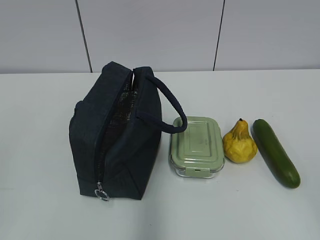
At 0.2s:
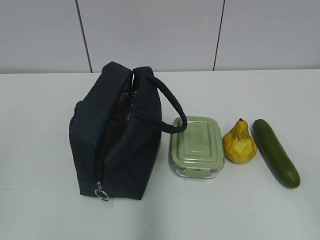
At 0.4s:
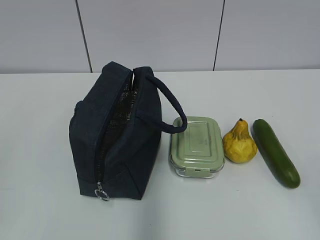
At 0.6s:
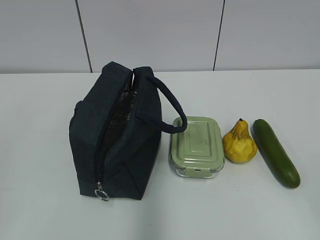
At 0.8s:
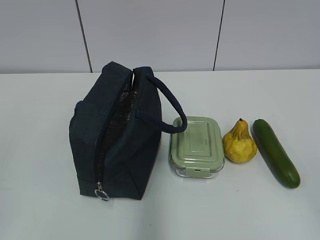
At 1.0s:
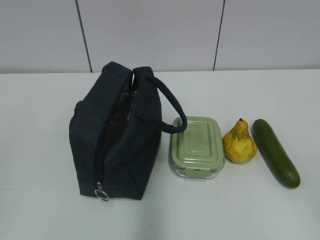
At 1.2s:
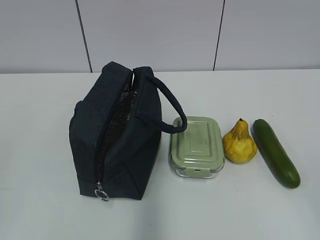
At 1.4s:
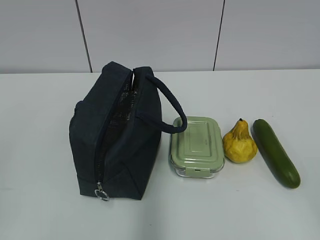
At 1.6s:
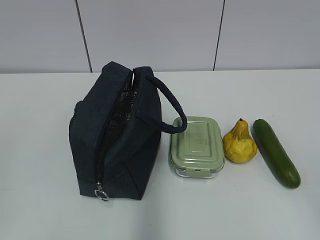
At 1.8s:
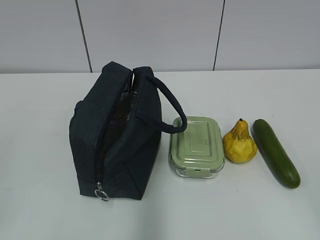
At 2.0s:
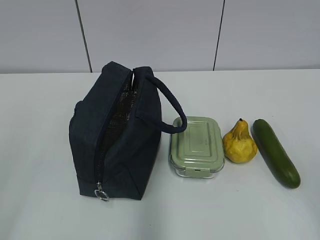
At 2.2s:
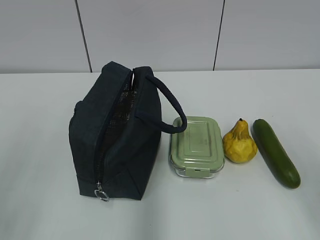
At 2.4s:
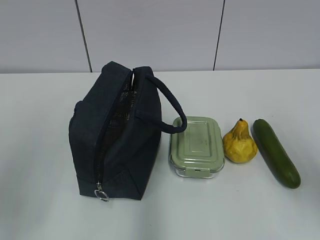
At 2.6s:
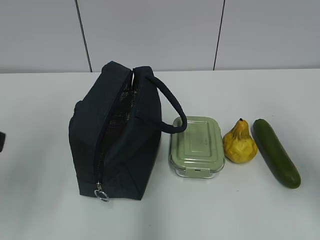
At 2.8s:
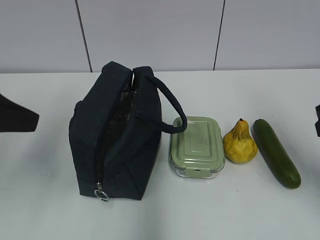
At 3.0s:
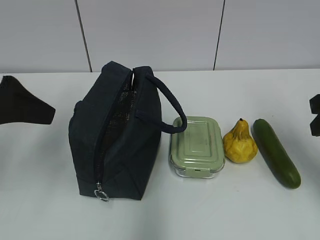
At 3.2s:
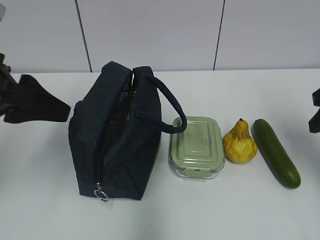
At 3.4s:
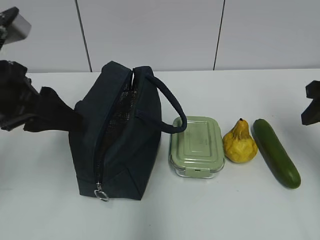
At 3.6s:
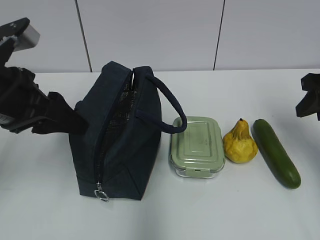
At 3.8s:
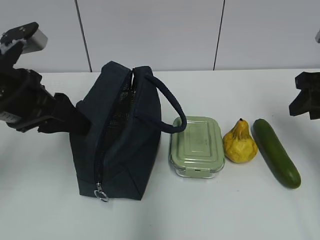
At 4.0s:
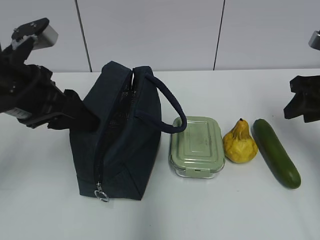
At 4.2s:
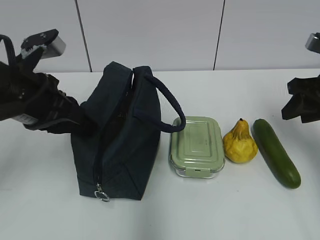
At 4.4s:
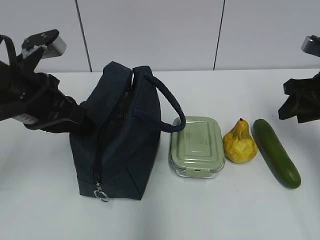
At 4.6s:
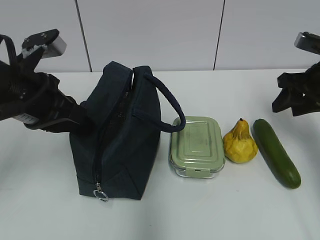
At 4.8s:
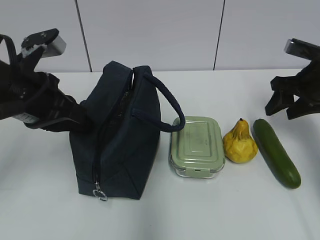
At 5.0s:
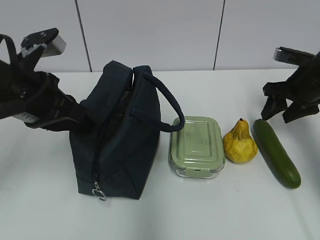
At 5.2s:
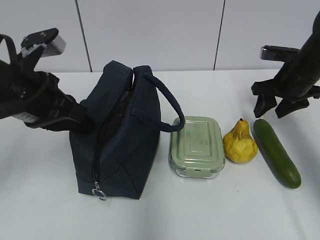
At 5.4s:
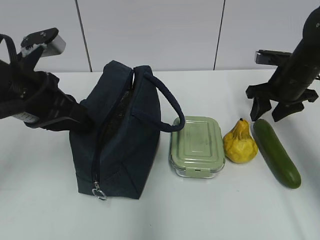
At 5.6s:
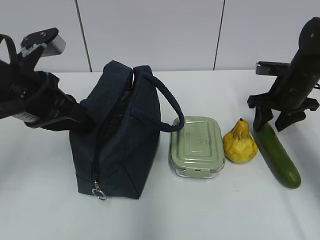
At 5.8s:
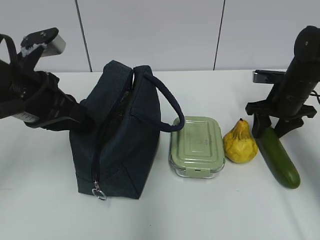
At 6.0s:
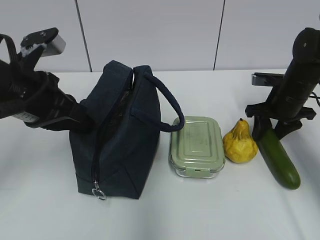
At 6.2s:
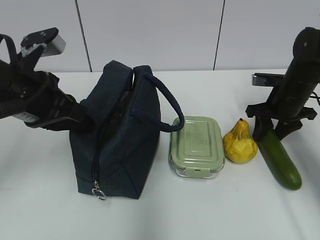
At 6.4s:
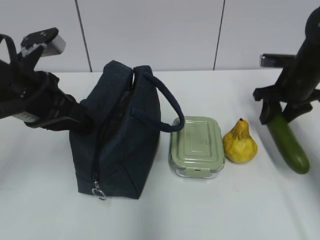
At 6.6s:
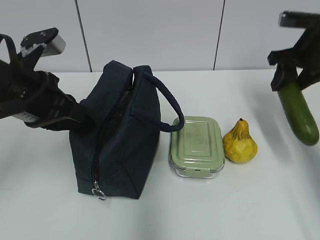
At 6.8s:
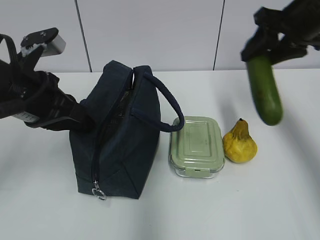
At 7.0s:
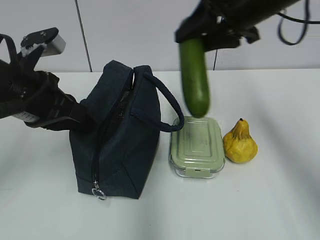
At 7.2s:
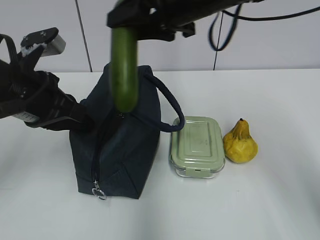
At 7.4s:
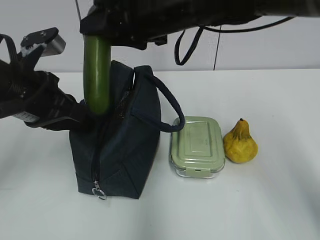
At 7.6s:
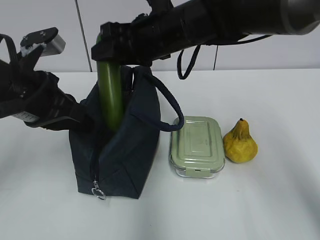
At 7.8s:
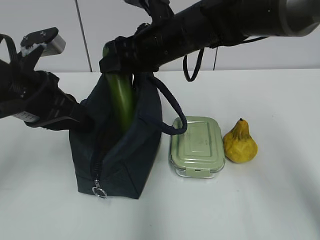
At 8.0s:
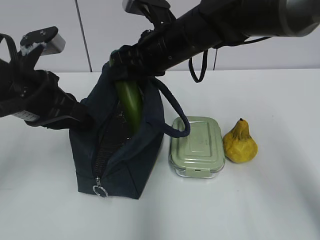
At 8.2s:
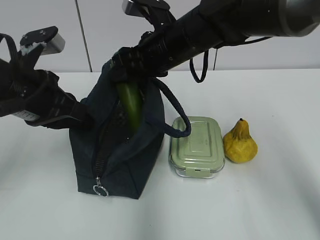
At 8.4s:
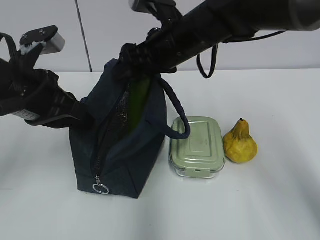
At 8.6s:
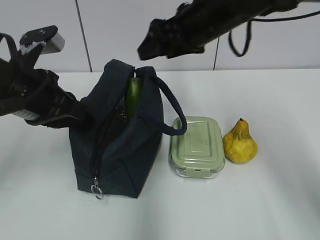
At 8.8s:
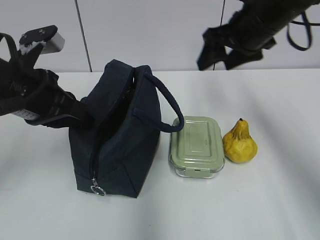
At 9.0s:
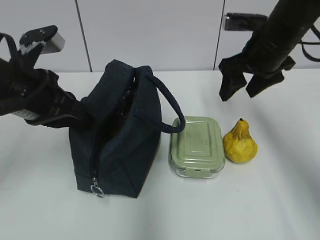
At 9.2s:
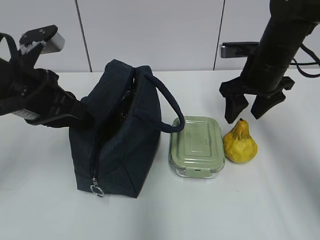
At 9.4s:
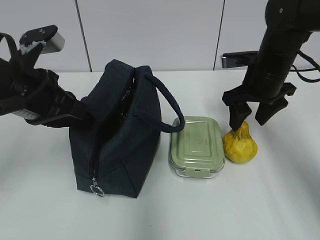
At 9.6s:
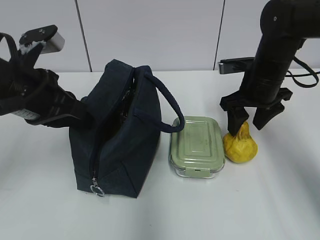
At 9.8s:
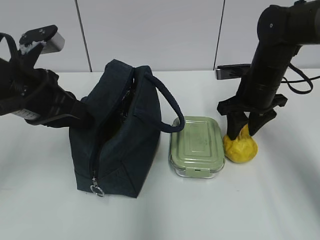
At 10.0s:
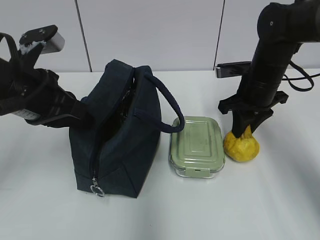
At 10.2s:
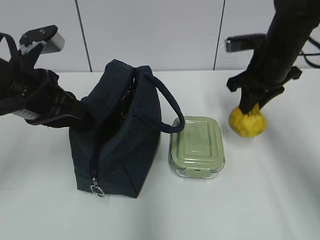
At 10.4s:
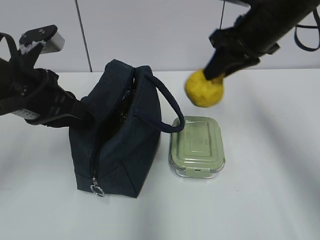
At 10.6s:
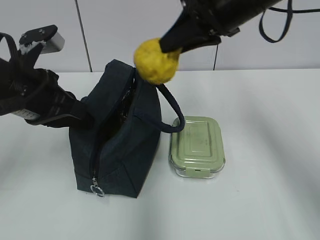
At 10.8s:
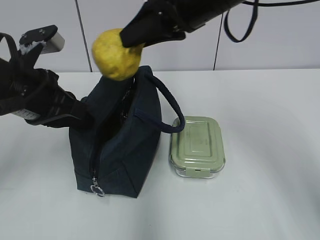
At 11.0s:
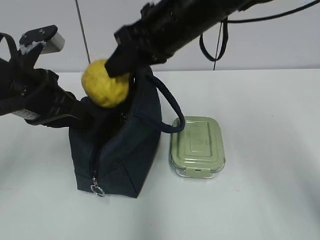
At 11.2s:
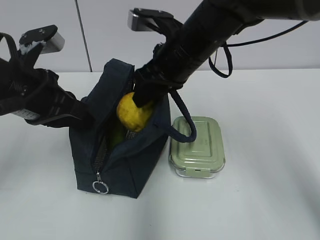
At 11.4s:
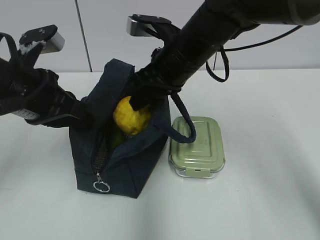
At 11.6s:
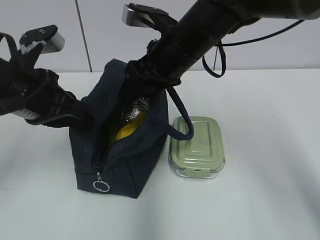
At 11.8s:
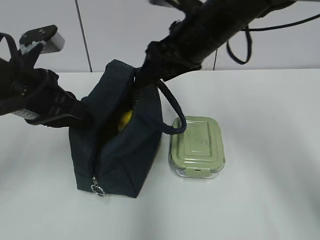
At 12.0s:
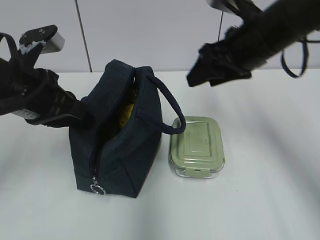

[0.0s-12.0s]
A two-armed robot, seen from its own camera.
Step, 0.0s to 6.0s: Grab the cucumber with your right hand.
Step, 7.8s to 8.6s: Place it into the bag with your right hand.
Step, 8.8s to 9.8s: Grab the pear with your right hand.
Step, 10.0s to 11.8s: Place it into the bag with your right hand.
1.6s to 3.0s: The two grippers go roughly 25 cm forward. The left gripper opens up.
3.0s to 4.4s: The right gripper heads forward, covering roughly 10 cm. The left gripper travels downward and forward by approximately 5 cm, and closes.
4.4s to 6.0s: The right gripper heads forward and downward, covering about 10 cm.
6.0s to 7.6s: The right gripper heads to the left and upward, covering some 30 cm.
7.6s to 9.0s: The right gripper is displaced to the right by about 15 cm.
9.0s to 10.4s: The right gripper shifts by about 5 cm, and closes its fingers.
10.4s to 12.0s: The right gripper moves about 10 cm to the left and comes back, and opens up.

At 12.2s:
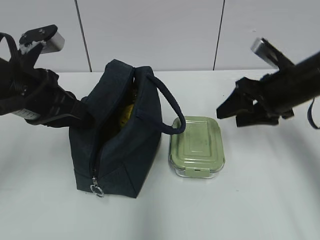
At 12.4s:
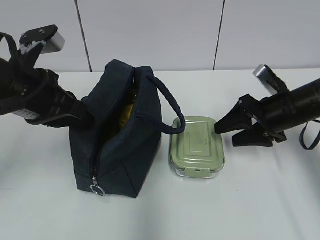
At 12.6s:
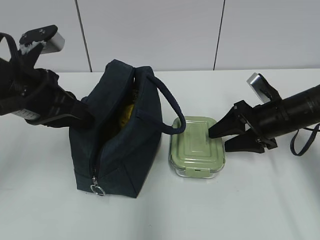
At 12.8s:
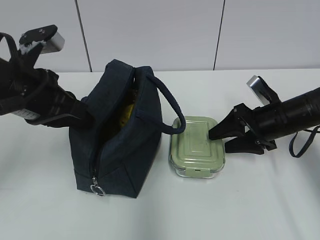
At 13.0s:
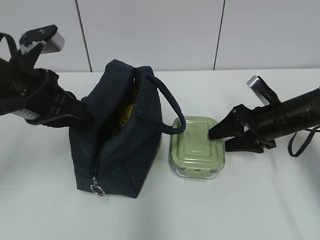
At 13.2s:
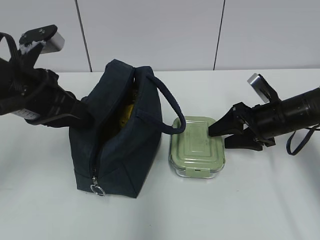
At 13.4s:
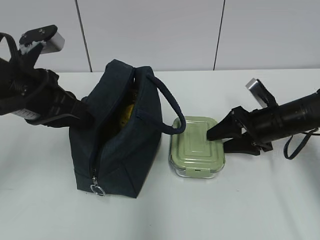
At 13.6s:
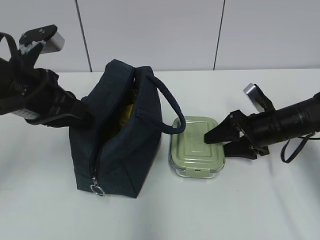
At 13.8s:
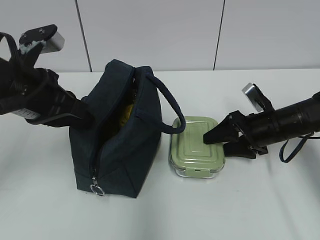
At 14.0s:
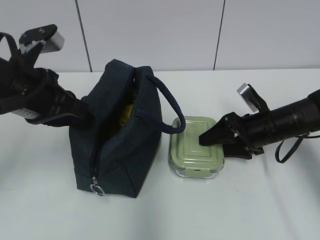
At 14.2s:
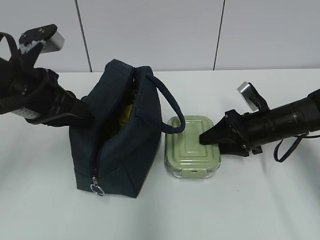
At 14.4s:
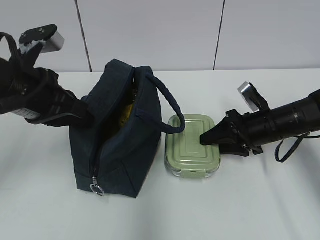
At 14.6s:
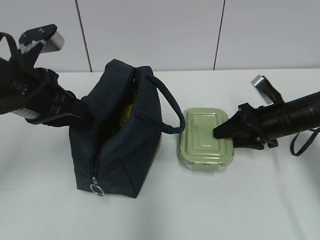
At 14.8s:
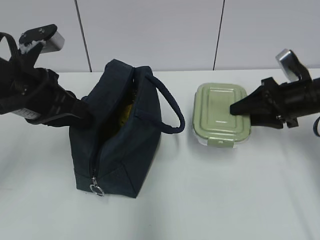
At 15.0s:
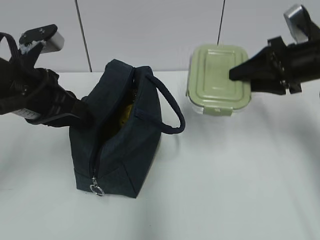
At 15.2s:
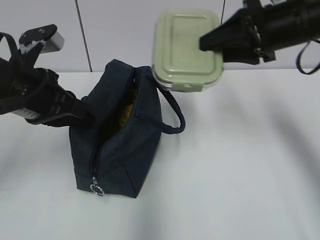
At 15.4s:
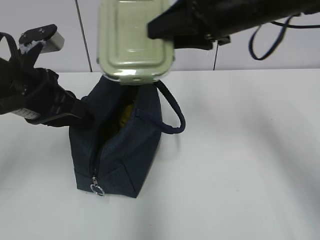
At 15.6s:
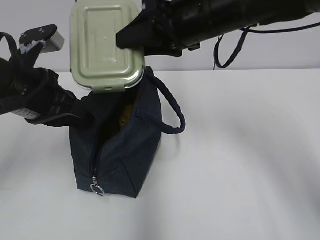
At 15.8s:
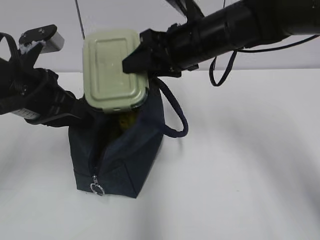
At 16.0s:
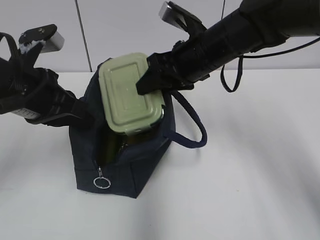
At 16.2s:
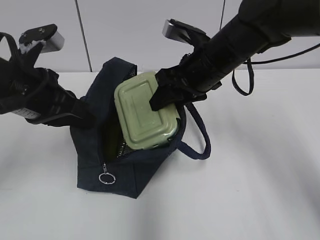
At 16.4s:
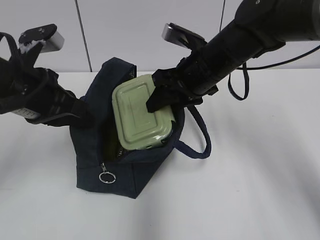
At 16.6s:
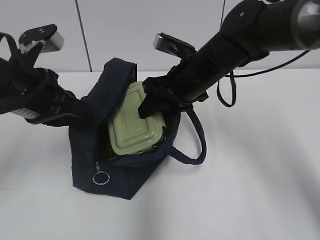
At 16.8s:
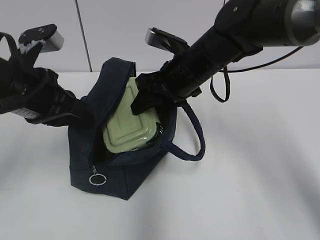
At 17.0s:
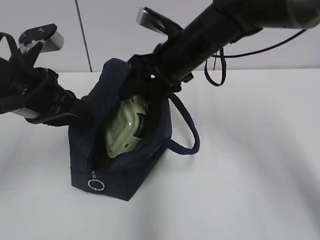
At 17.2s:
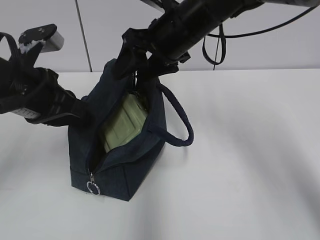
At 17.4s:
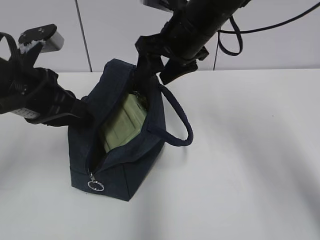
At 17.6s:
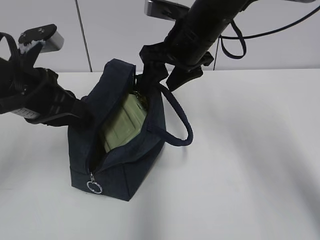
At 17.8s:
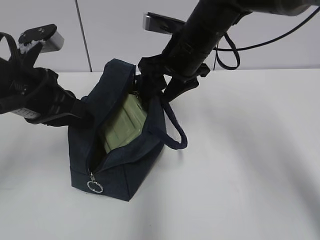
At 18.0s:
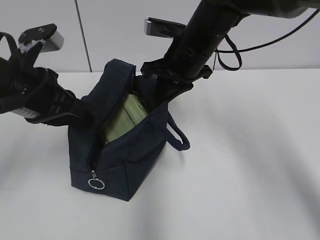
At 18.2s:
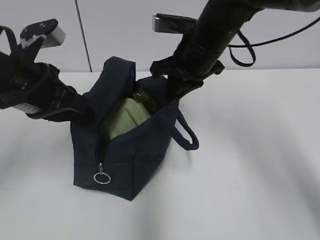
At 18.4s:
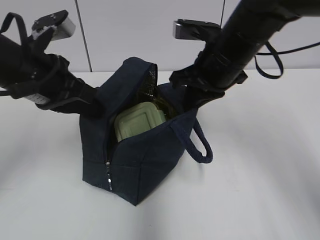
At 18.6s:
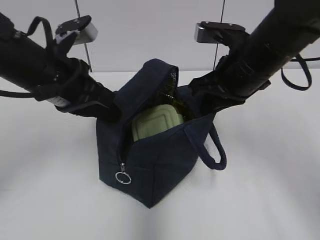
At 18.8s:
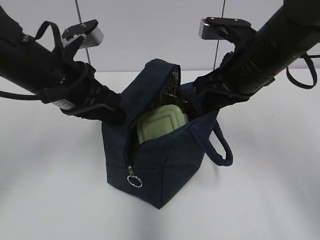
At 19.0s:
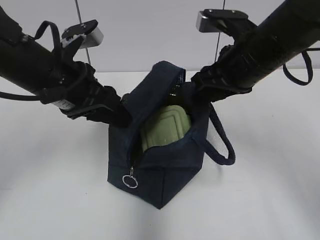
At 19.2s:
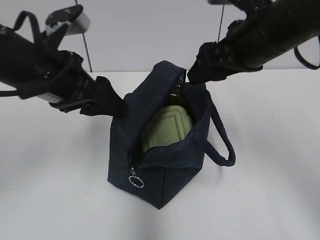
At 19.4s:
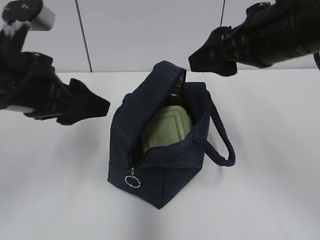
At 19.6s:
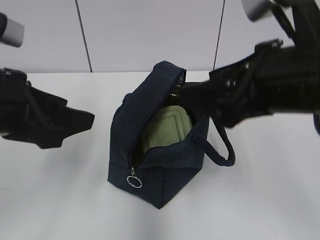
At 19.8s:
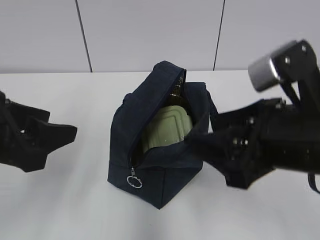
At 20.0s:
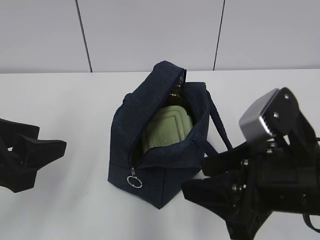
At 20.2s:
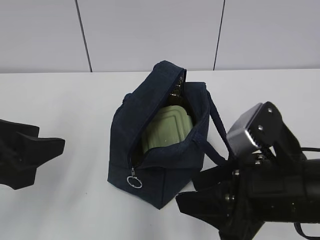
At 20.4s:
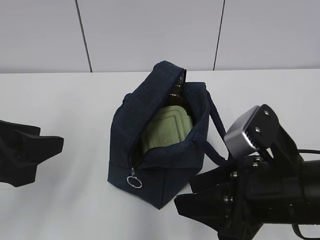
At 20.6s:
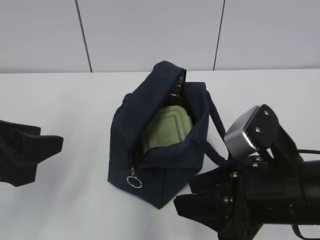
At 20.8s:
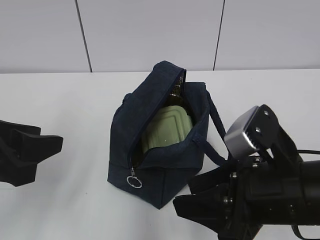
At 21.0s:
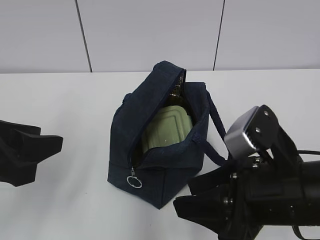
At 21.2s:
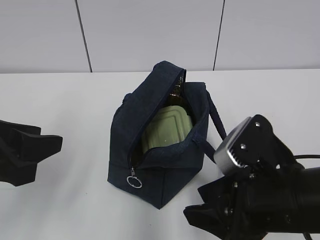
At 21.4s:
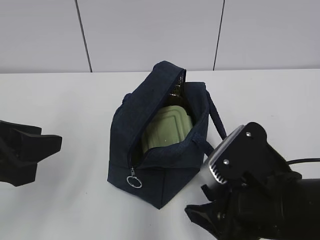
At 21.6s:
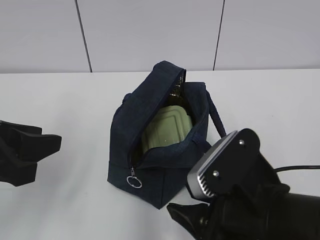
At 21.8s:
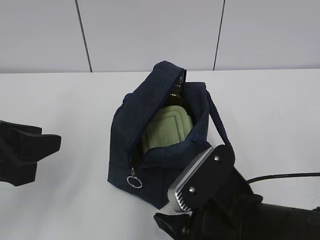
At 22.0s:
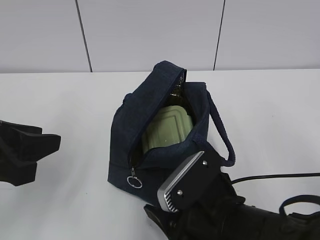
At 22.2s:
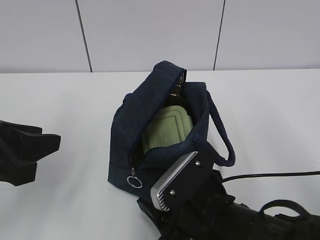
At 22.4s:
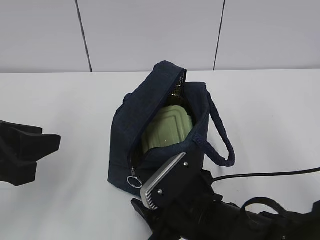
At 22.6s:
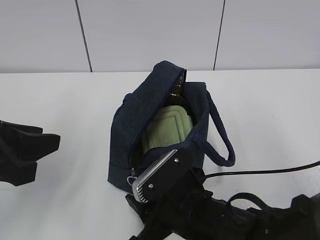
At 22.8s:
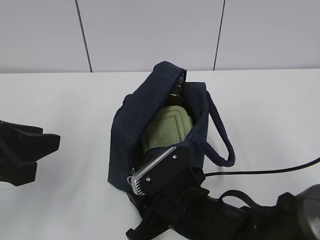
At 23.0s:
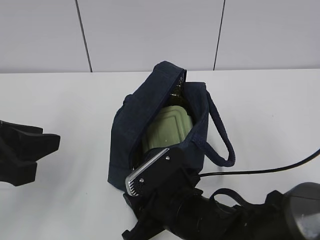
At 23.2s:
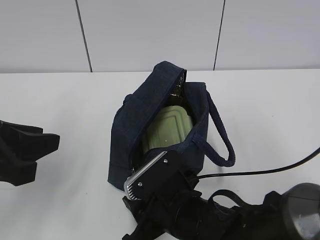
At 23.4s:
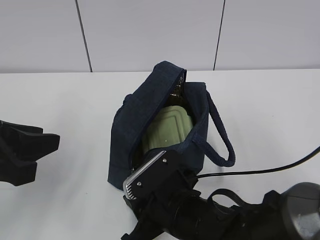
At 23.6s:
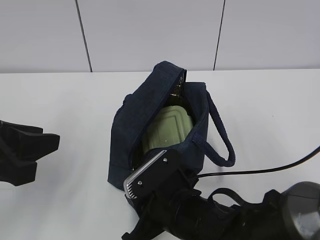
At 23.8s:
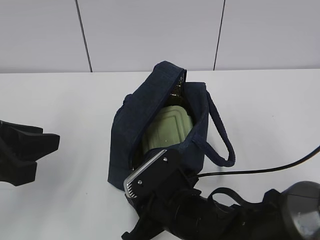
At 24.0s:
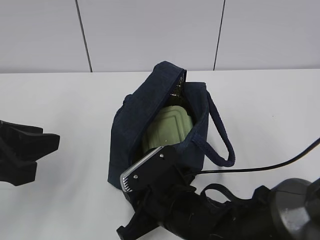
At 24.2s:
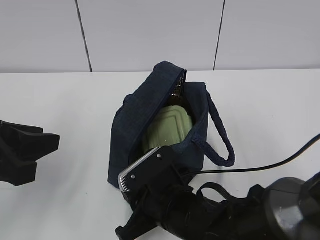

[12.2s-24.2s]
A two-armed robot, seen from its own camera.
Step, 12.2s to 14.2s: Grab the lunch box with your right hand.
Step, 17.2s to 17.8s: Grab the lunch bag with your right hand.
Step, 18.0s to 18.8s: Move the lunch bag to the right.
12.2s to 13.8s: The right gripper travels downward by some 10 cm.
13.8s to 15.2s: The right gripper moves upward, some 20 cm.
15.2s to 16.6s: The right gripper is displaced to the left and downward by approximately 15 cm.
16.6s to 18.2s: The right gripper closes its fingers.
18.2s to 19.8s: The right gripper goes about 20 cm backward, and opens its fingers, while the left gripper travels backward by approximately 10 cm, and opens up.
19.8s to 21.2s: The right gripper goes roughly 5 cm downward.
21.2s to 22.6s: The right gripper goes some 10 cm downward and to the left.
22.6s to 24.2s: The grippers stay close to where they were, moving slightly.
